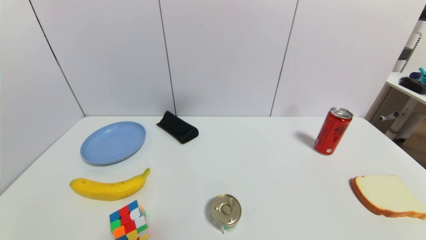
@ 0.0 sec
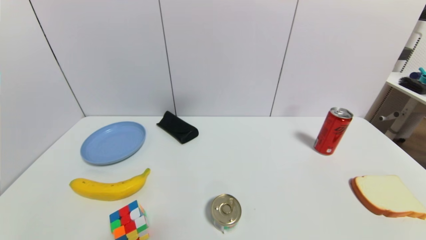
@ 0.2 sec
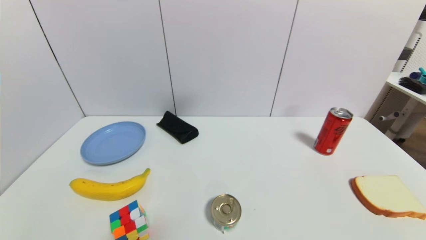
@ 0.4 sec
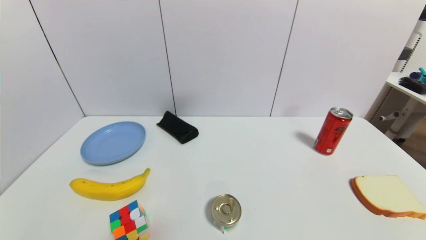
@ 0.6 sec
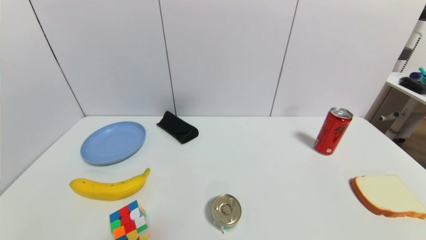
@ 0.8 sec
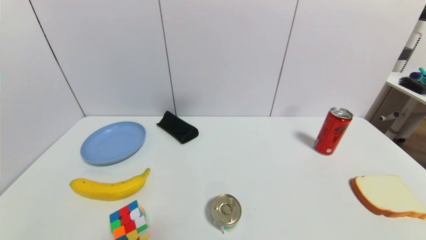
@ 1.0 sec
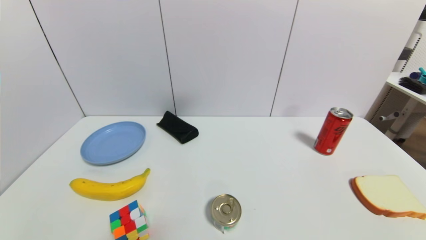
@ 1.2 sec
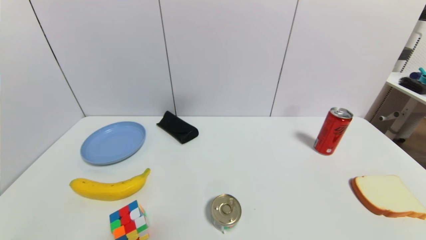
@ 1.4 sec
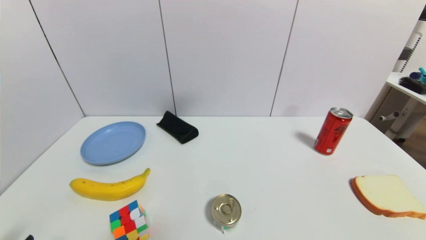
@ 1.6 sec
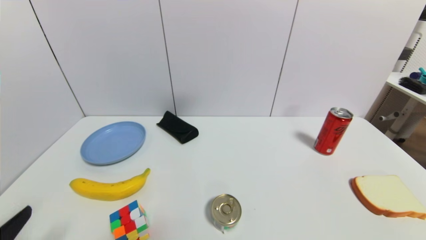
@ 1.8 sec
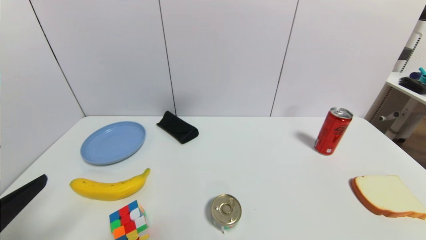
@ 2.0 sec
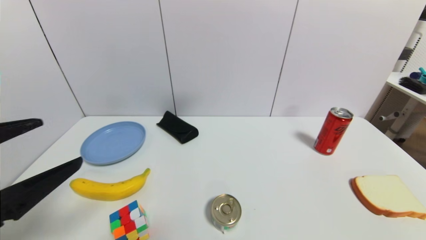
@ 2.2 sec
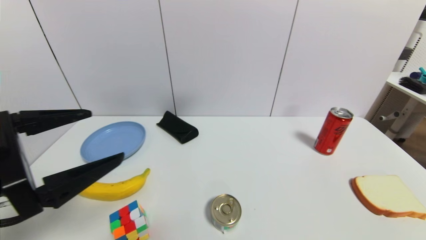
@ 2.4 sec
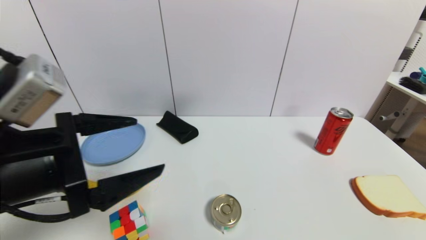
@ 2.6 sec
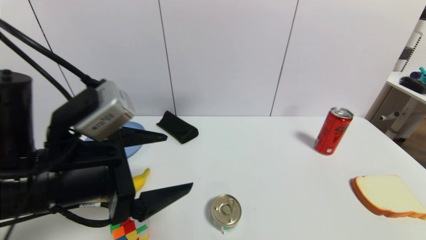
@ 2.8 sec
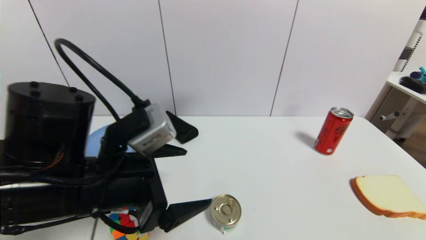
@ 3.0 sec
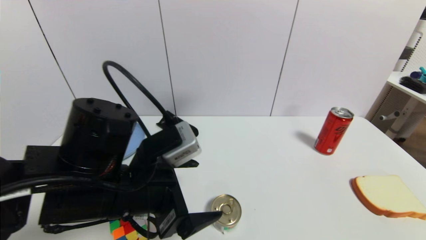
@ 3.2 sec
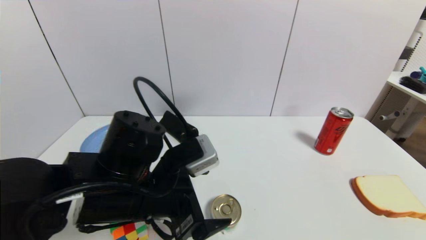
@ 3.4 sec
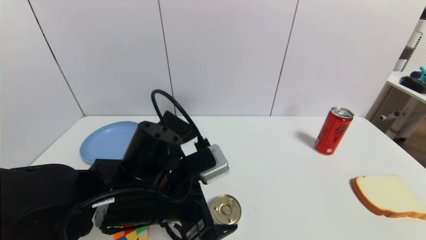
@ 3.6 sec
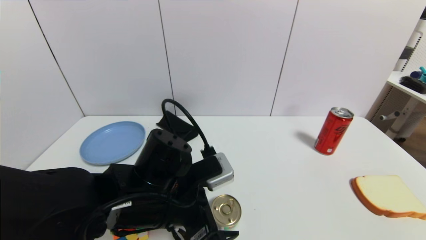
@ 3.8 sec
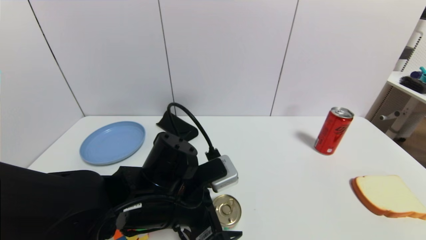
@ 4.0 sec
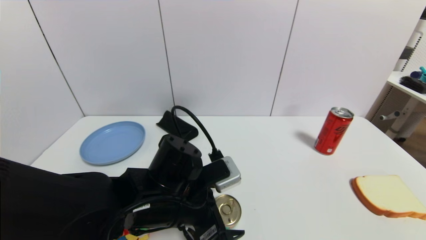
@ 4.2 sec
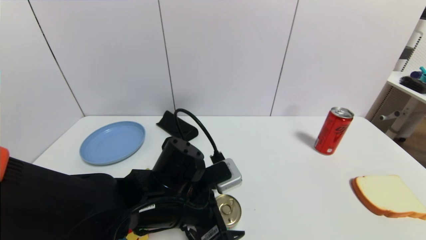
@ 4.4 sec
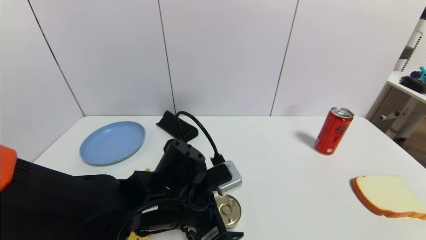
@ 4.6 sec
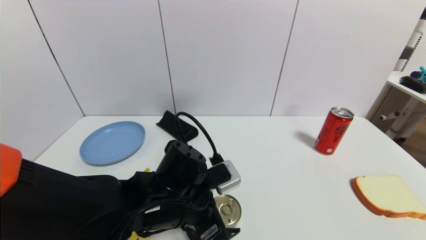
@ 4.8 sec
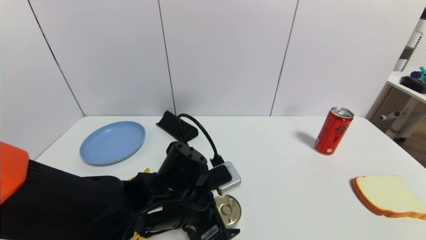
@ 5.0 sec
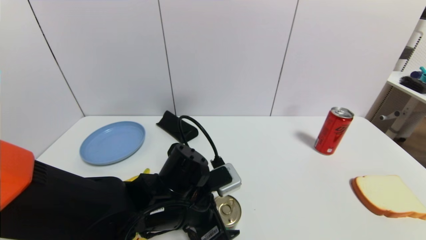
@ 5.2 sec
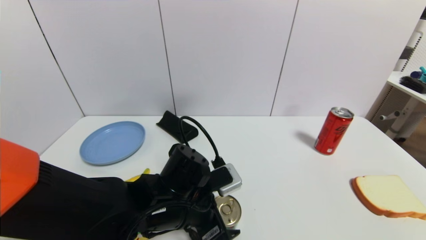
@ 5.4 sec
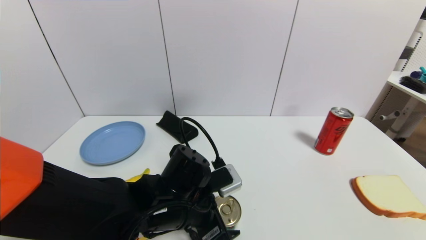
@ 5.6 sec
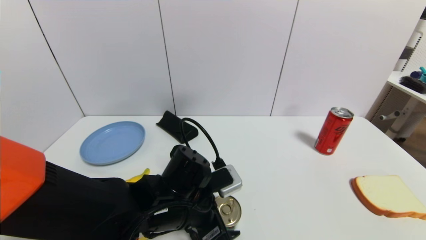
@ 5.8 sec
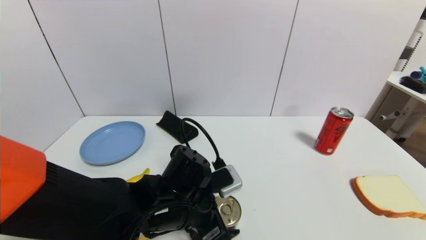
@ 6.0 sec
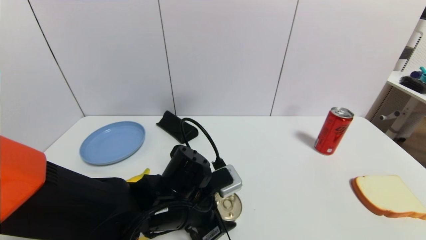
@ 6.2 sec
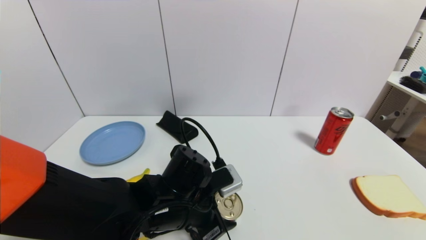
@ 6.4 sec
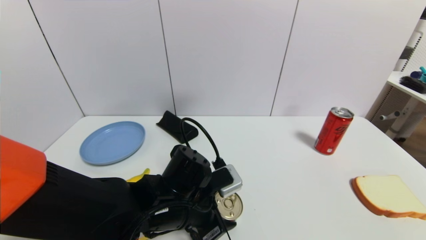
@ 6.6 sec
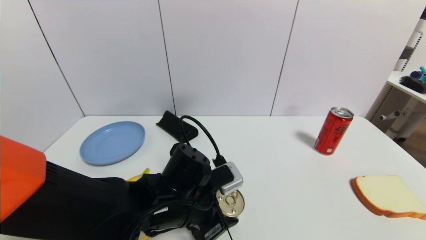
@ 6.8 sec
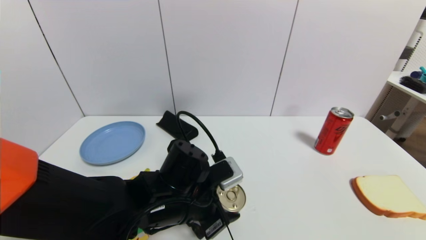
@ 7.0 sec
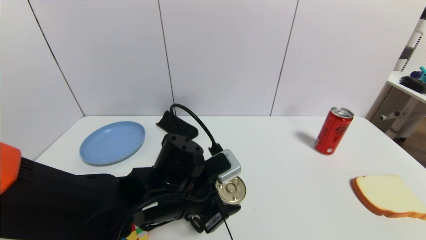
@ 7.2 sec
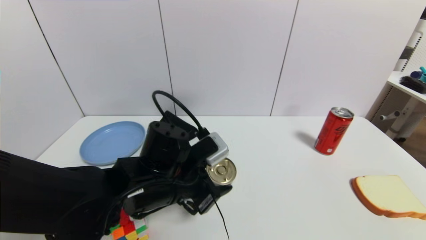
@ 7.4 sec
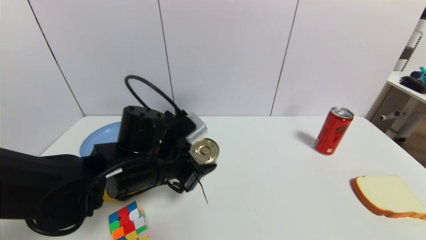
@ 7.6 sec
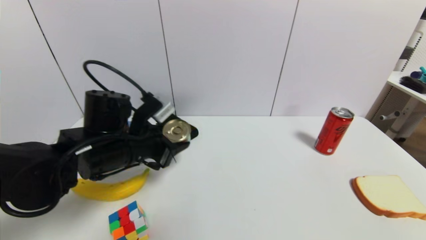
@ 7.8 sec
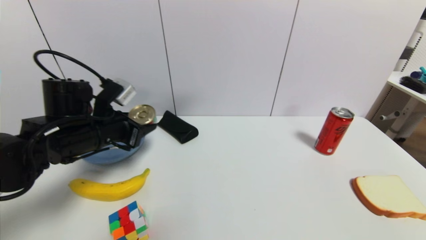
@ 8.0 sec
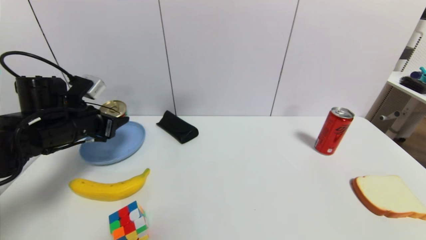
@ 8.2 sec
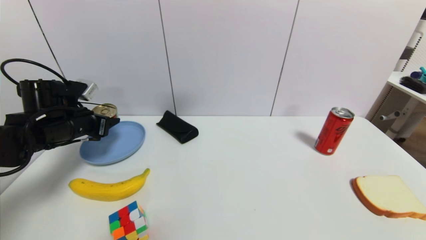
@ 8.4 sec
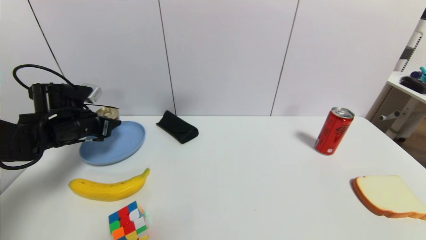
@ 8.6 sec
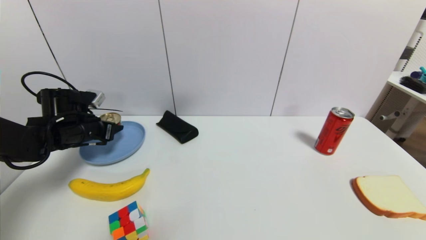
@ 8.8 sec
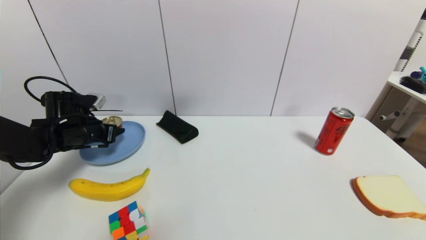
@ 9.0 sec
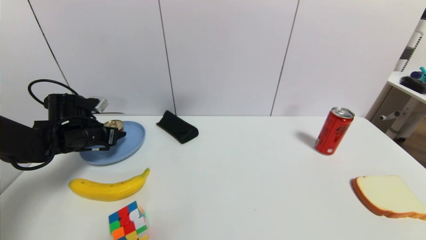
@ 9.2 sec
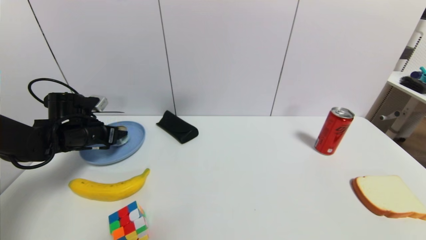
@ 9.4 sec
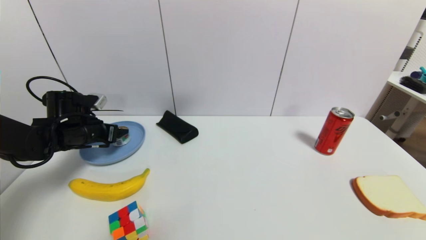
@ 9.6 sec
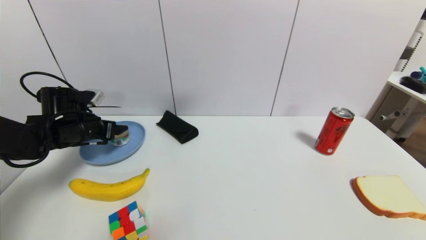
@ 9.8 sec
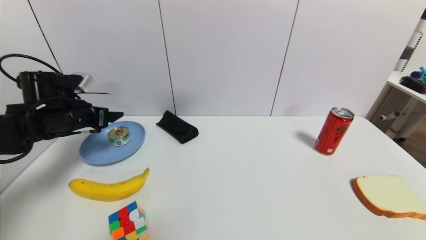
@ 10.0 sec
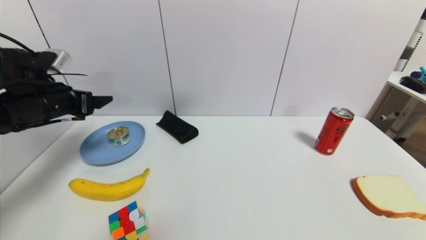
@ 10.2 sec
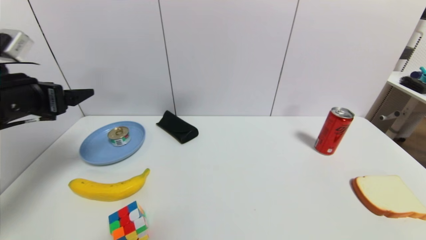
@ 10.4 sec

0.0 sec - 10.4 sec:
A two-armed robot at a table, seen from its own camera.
Task of the whole recording: use a gripper to pick the target object and place on the blue plate.
Step, 0.0 sec - 6.4 sec: Grasp the tin with the left gripper.
Step, 6.6 sec - 10.2 sec: Place the tin on the blue plate with the left gripper.
1.4 sec - 3.0 sec: The left gripper shifts about 25 cm forward, to the right and upward.
3.0 sec - 4.4 sec: The left gripper goes approximately 10 cm downward and to the right.
4.4 sec - 6.0 sec: The grippers move only a little.
6.0 sec - 7.4 sec: The left gripper closes its fingers.
7.4 sec - 9.0 sec: The left gripper heads to the left and forward, covering some 25 cm.
9.0 sec - 10.4 sec: The left gripper heads upward and backward, covering some 20 cm, and opens.

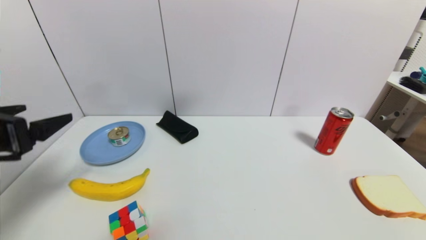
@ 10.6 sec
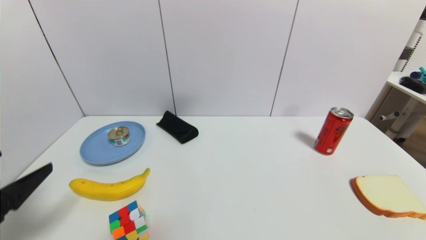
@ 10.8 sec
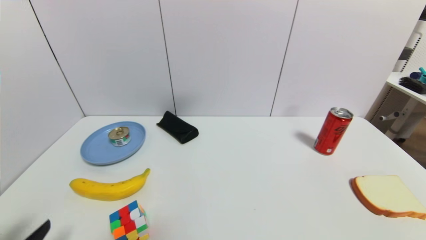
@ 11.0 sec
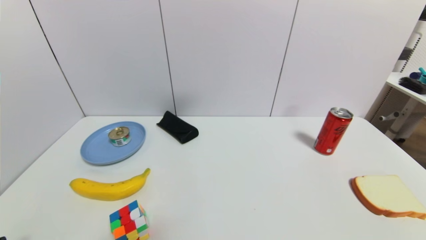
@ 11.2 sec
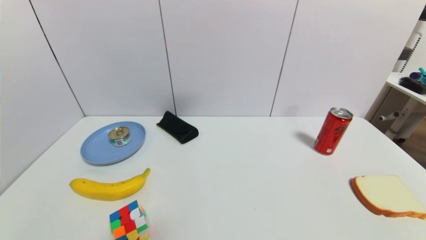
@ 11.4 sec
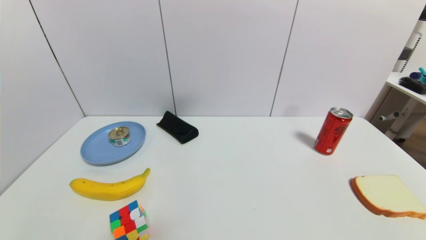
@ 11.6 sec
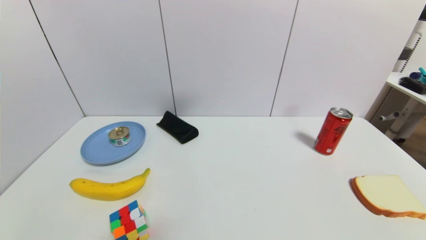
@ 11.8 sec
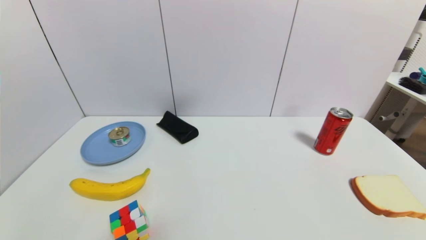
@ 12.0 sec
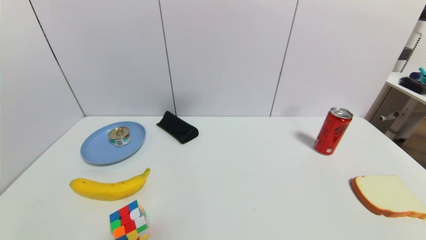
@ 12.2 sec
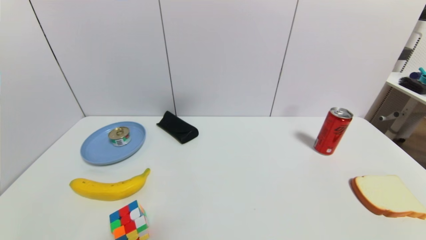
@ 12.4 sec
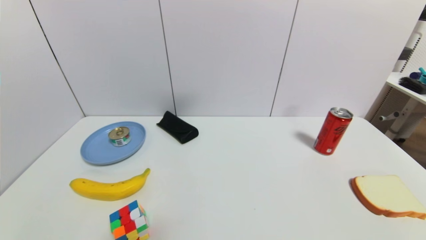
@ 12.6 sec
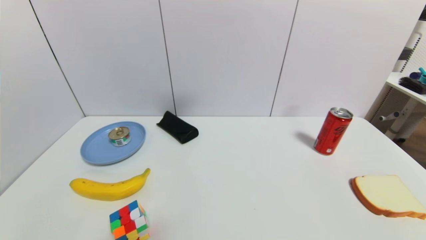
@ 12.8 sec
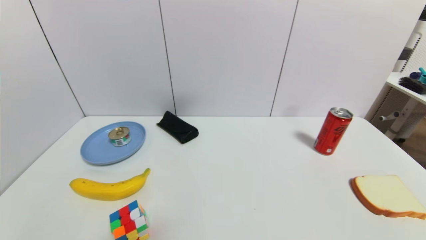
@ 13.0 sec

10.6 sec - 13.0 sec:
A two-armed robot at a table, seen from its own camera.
Task of the whole recording: use a gripper to pick the target object and place on the blue plate.
10.6 sec - 11.8 sec: The left gripper shifts approximately 25 cm downward and backward.
11.8 sec - 13.0 sec: Both grippers stay put.
